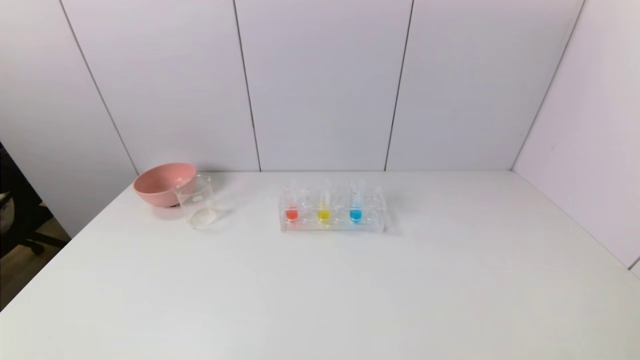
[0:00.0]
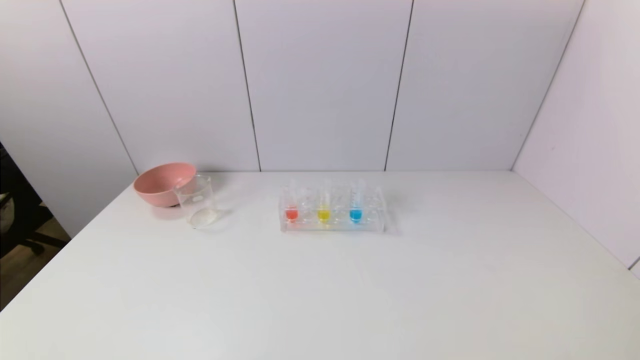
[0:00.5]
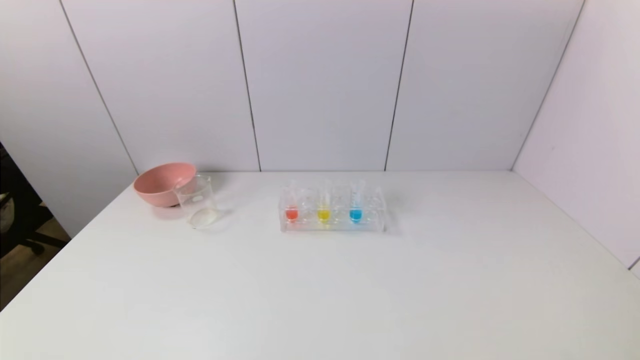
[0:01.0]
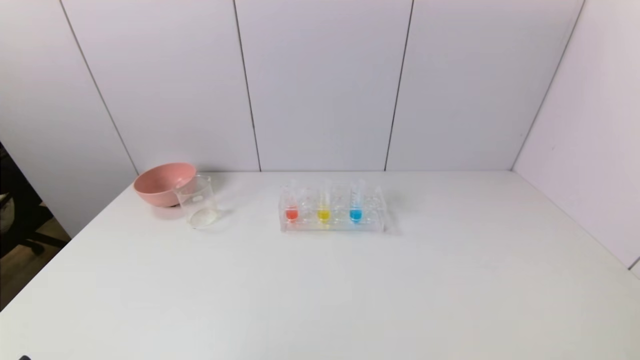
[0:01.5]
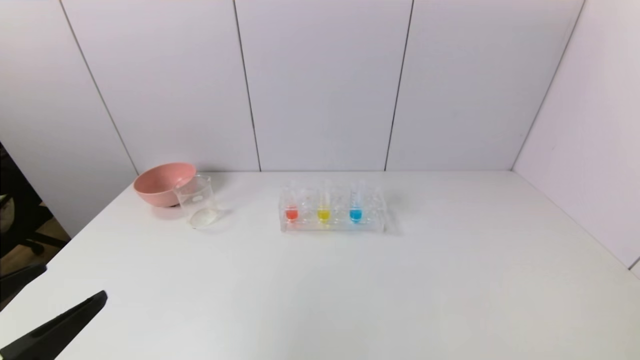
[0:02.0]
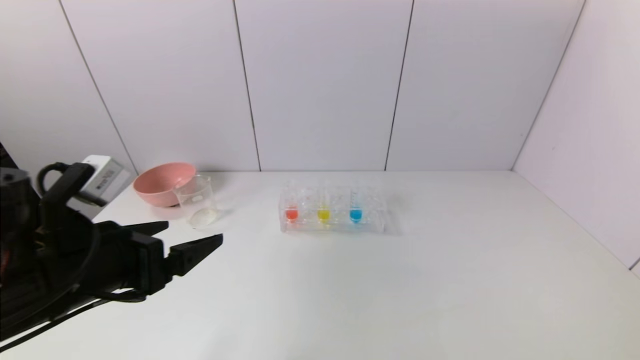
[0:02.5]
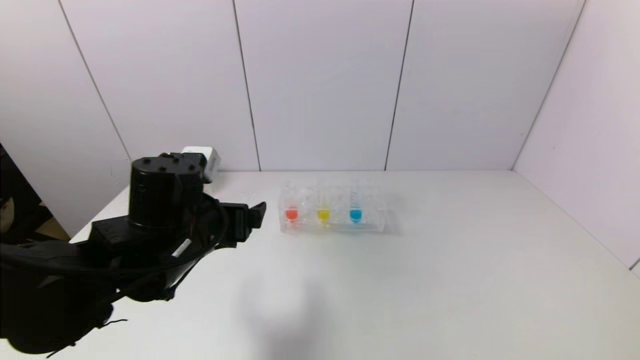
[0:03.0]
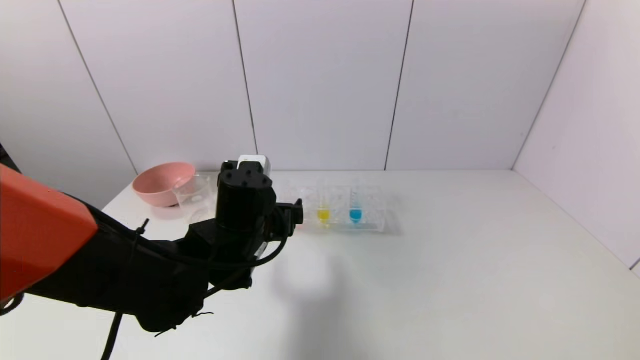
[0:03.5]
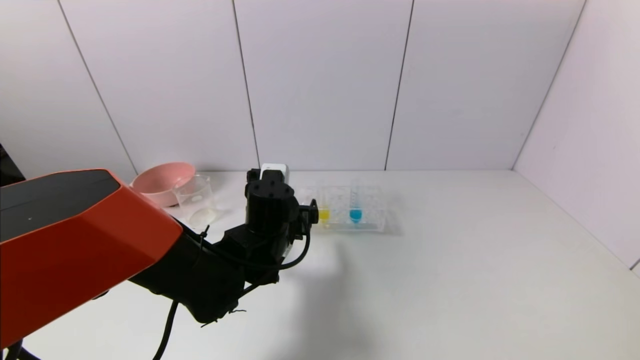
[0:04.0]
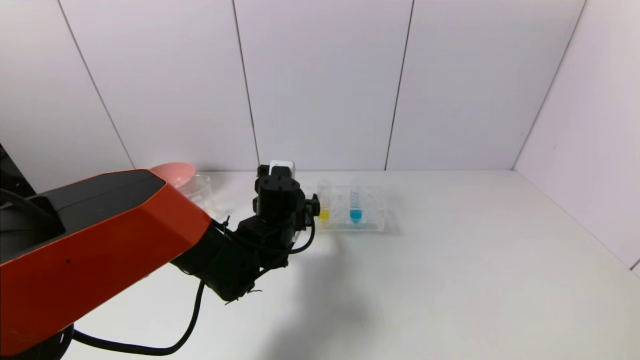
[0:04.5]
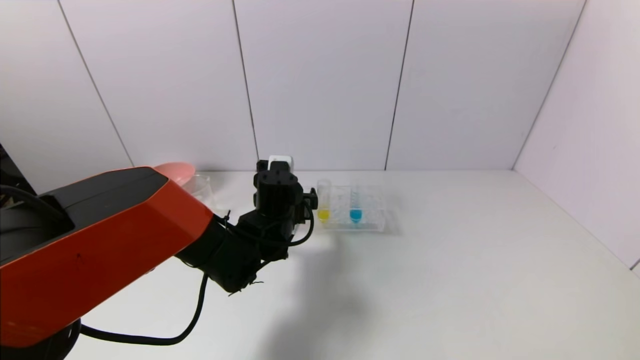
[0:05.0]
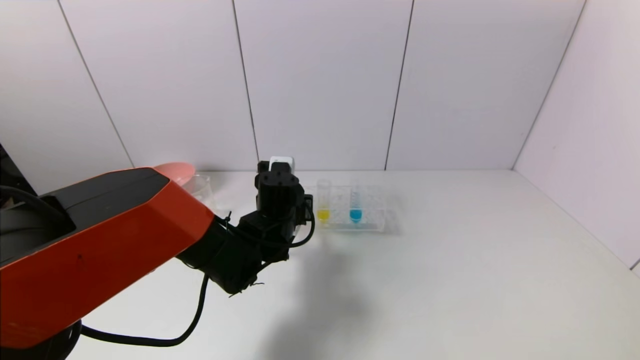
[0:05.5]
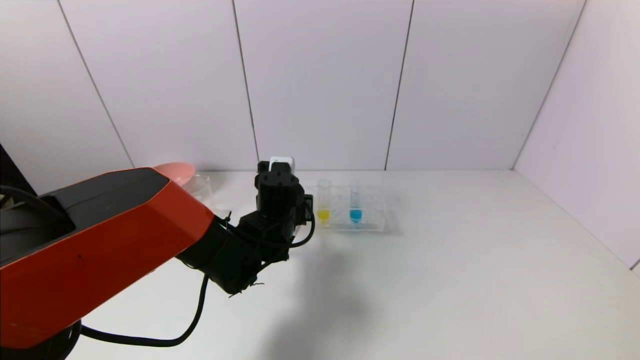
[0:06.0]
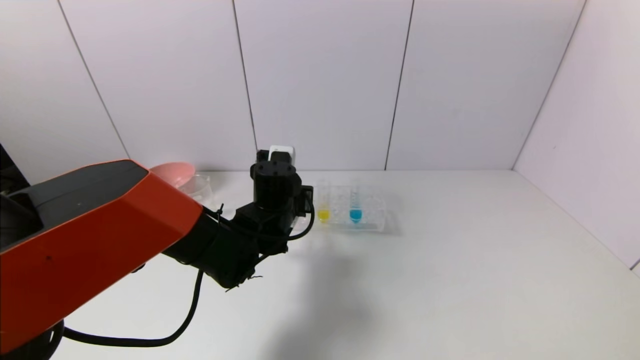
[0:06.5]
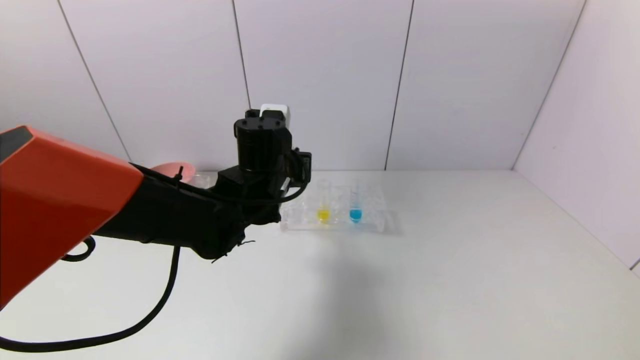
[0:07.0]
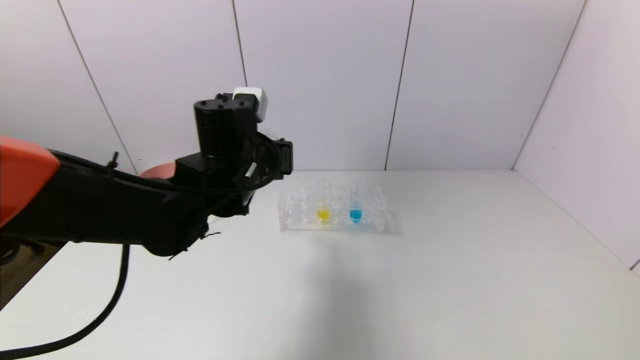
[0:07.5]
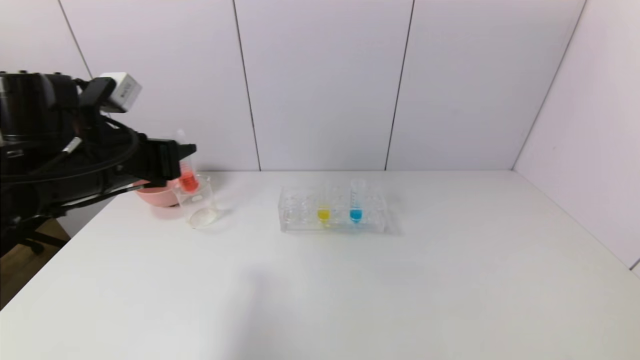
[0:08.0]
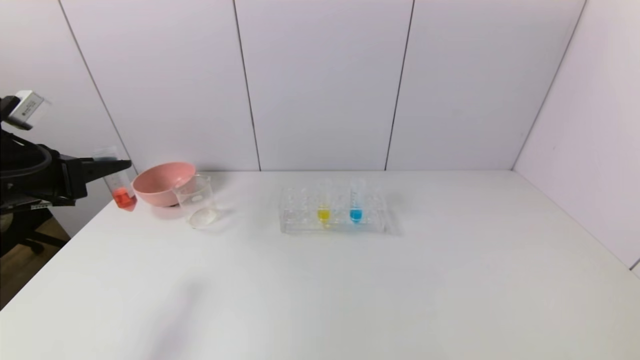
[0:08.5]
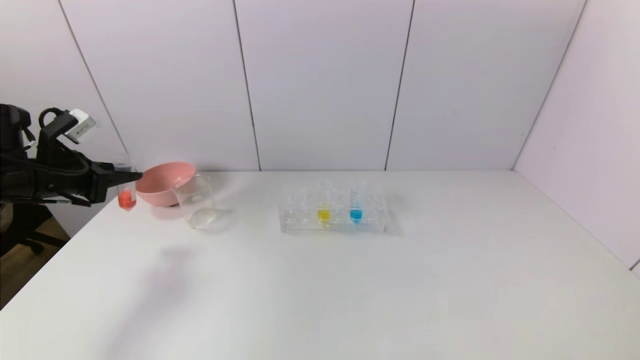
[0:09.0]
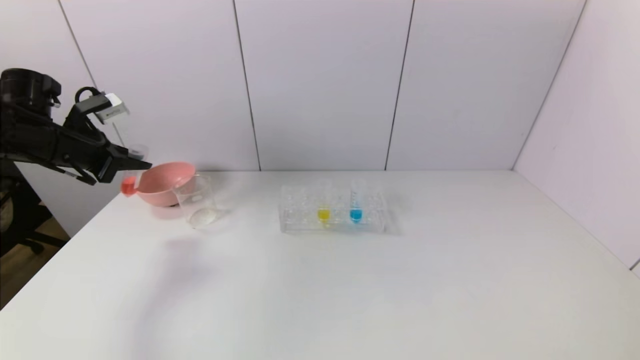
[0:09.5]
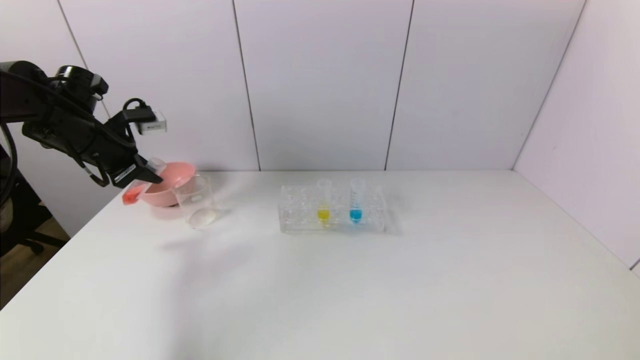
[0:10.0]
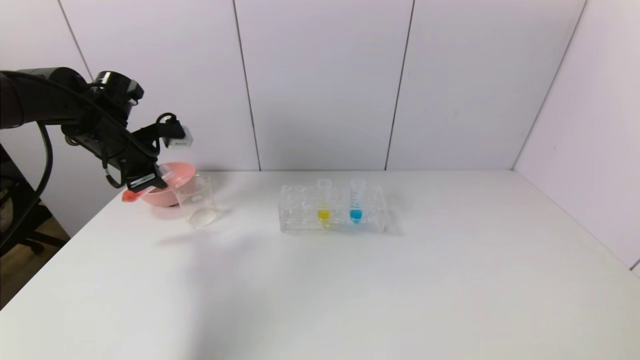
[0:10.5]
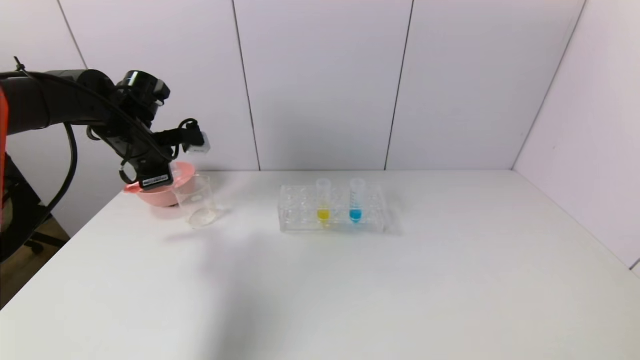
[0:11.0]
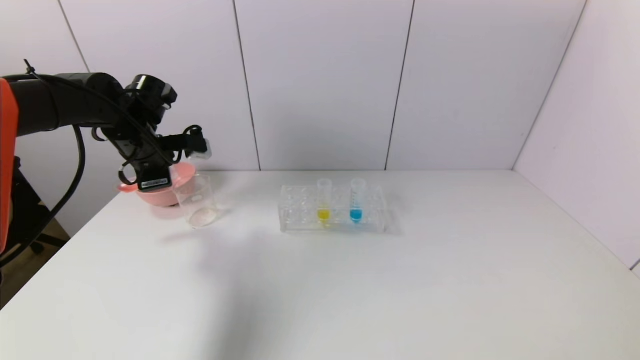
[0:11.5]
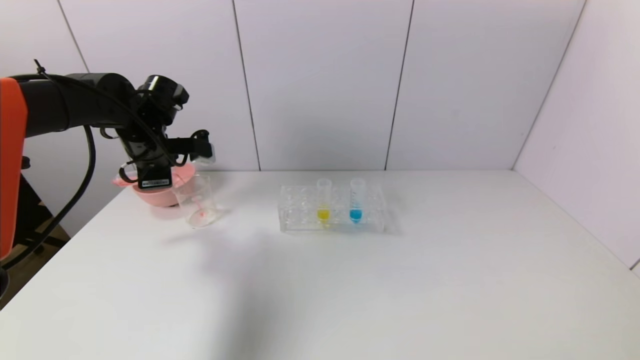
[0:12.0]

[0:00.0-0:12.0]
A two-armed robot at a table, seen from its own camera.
Task of the whole recording: pick up the test tube with yellow pigment and the test tube with red pigment by grippers and pour them into the beaker.
Step, 0:00.0 to 0:05.5: Grasp the red reagent with the left gripper.
0:00.0 to 0:02.0: The left gripper moves upward and forward, roughly 15 cm.
0:02.0 to 0:04.0: The left gripper moves forward and to the right, approximately 35 cm.
0:04.0 to 0:06.0: The left gripper closes up.
0:06.0 to 0:08.0: The left gripper is displaced to the left, upward and backward by approximately 25 cm.
0:08.0 to 0:10.0: The left gripper shifts about 15 cm forward and to the left.
0:10.0 to 0:12.0: The left gripper shifts approximately 10 cm to the right.

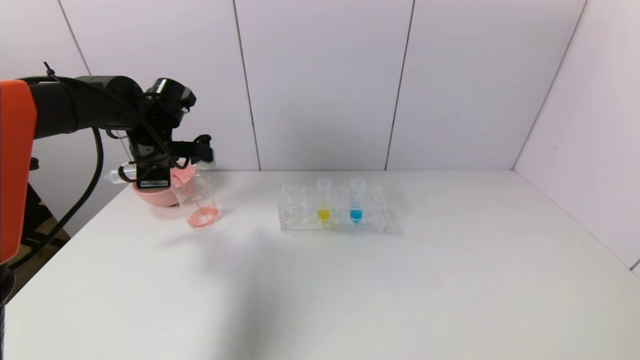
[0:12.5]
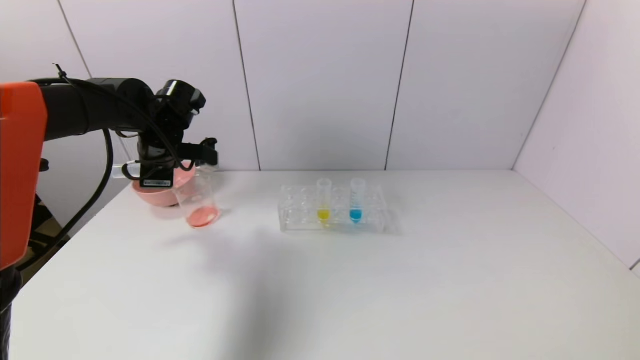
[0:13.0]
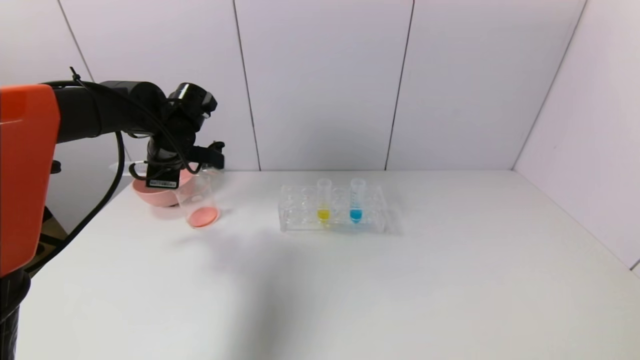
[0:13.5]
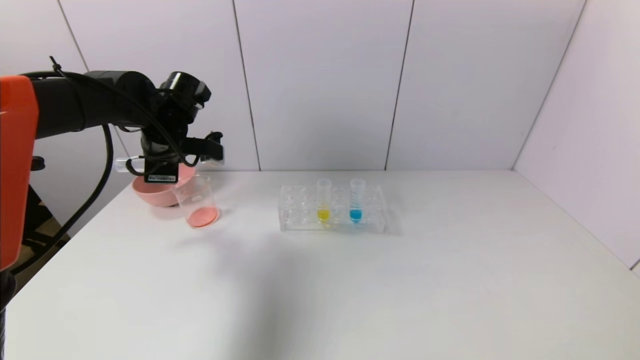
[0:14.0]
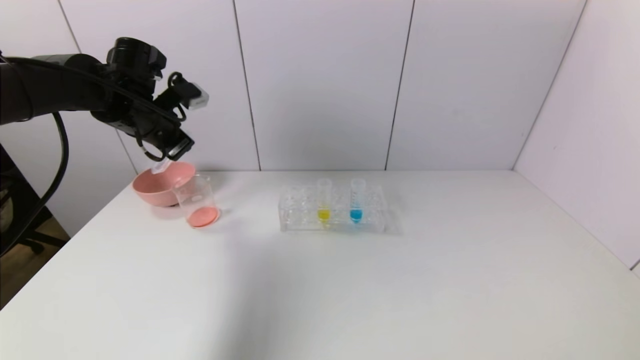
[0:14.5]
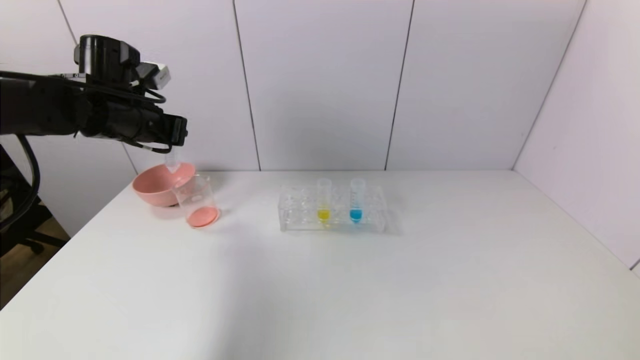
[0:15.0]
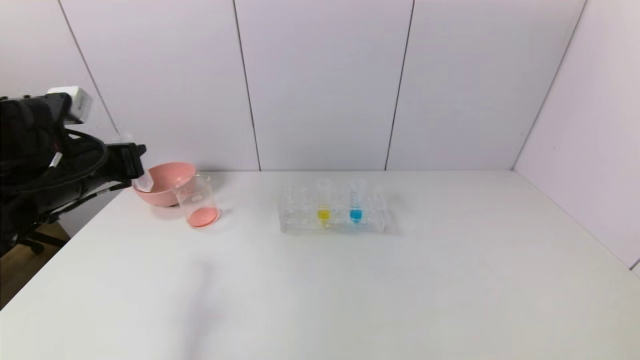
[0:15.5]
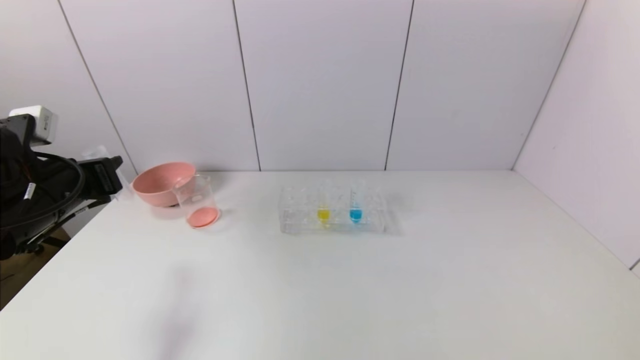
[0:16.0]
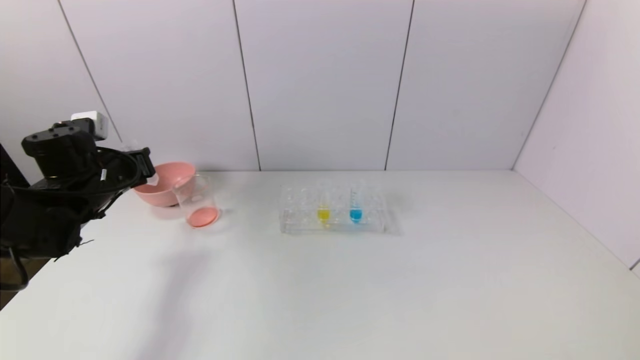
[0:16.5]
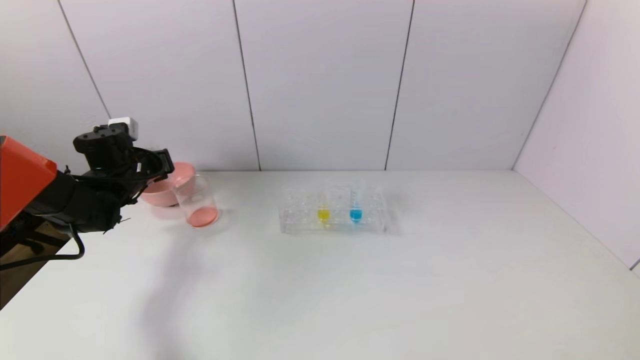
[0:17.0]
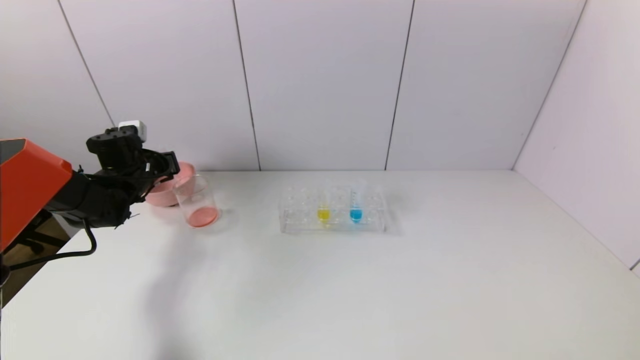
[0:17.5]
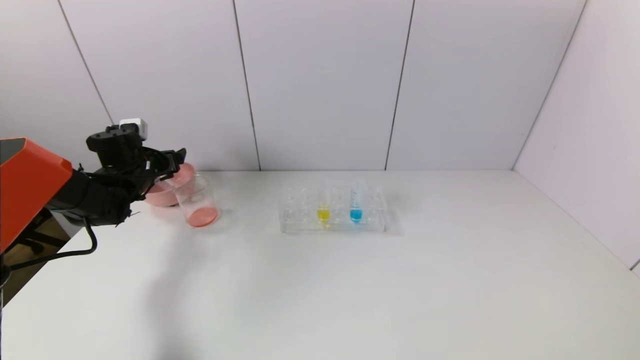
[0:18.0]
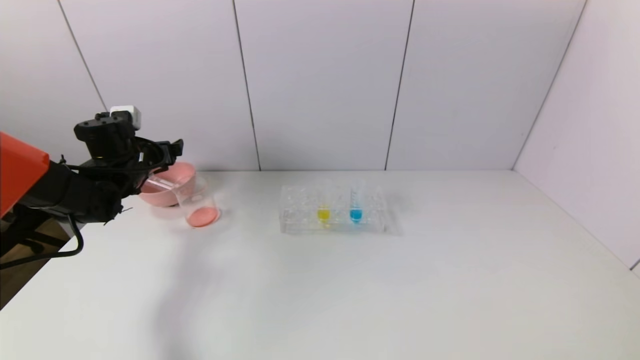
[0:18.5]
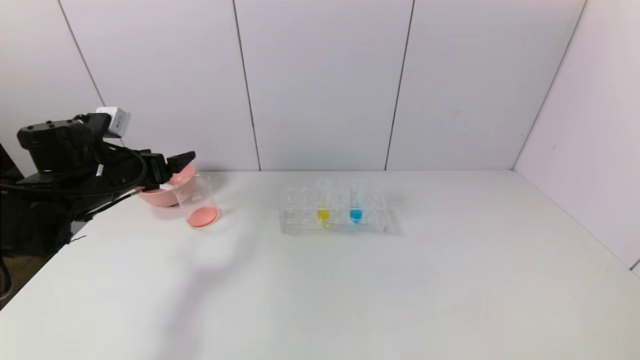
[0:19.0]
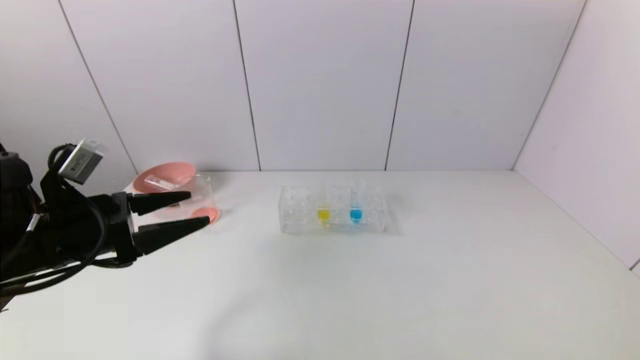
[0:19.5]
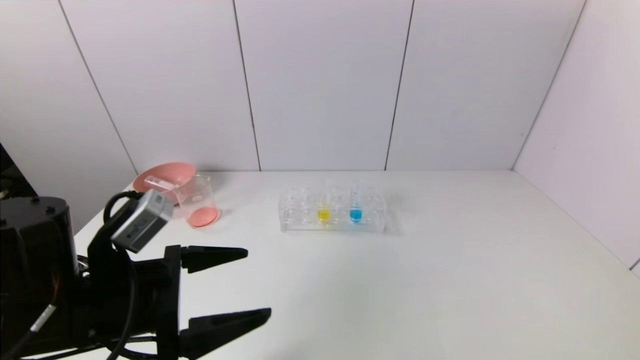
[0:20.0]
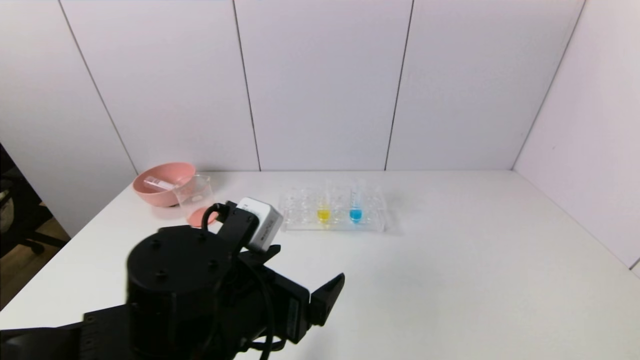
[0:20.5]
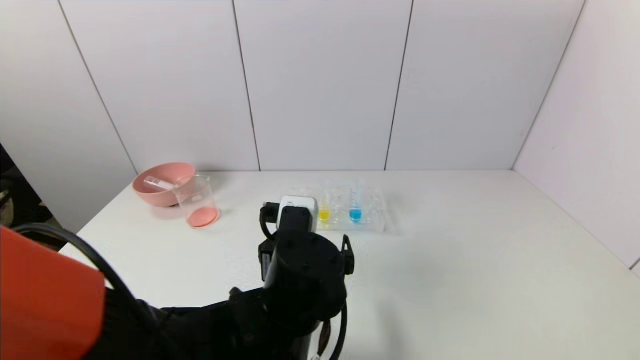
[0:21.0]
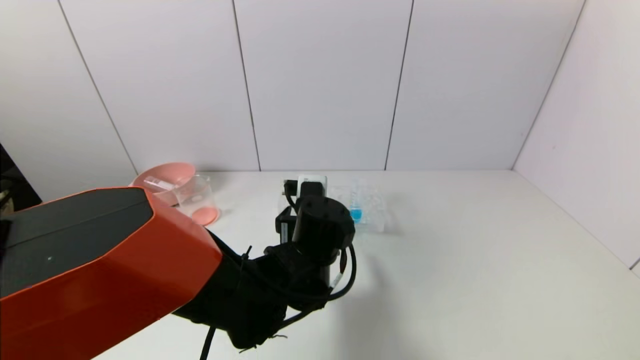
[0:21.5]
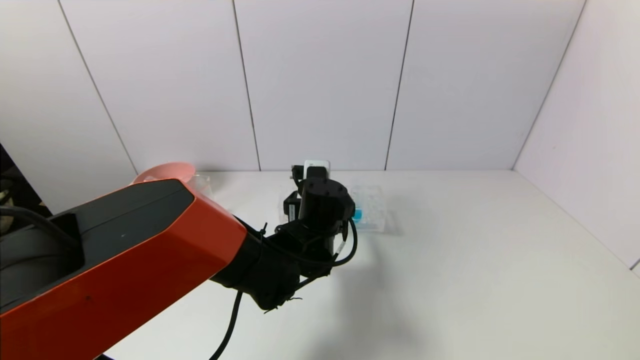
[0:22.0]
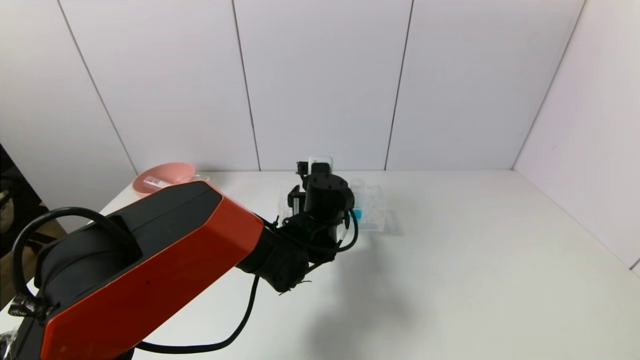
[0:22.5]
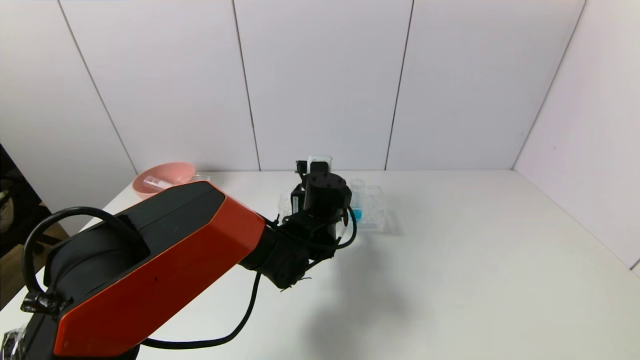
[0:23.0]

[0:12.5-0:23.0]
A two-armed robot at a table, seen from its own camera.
Task of the whole recording: pick up the test tube with yellow pigment and the test tube with red pigment by grippers and pour them into the beaker.
Step, 0:14.0 to 0:18.0: Place the test tube into the pink bowl with the left gripper.
0:14.5 to 0:16.5: The left gripper goes roughly 10 cm downward and to the left, and travels backward and back again, approximately 15 cm each way.
0:16.5 to 0:19.0: The left gripper goes forward and returns, approximately 10 cm each way, and opens its fingers.
0:19.0 to 0:21.0: The left gripper heads to the right and backward, covering approximately 35 cm.
0:21.0 to 0:23.0: The left gripper moves forward, about 15 cm.
